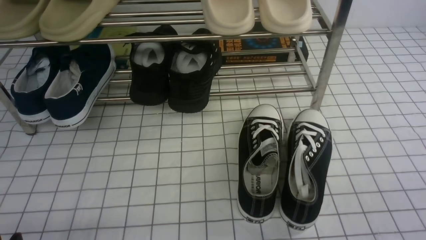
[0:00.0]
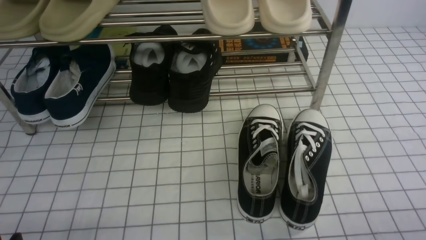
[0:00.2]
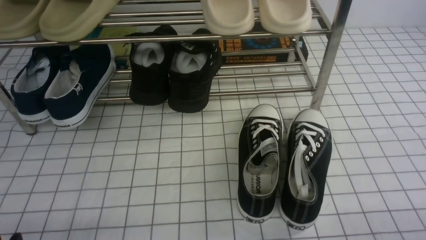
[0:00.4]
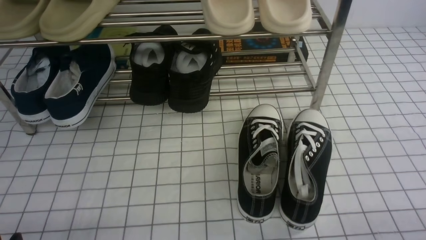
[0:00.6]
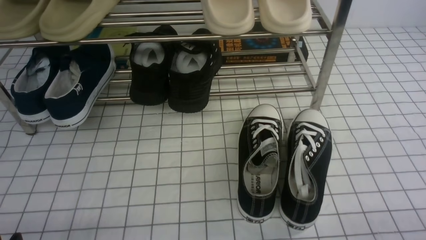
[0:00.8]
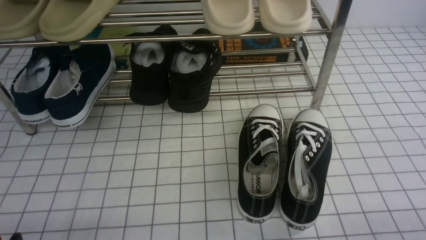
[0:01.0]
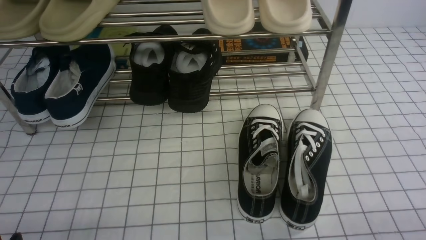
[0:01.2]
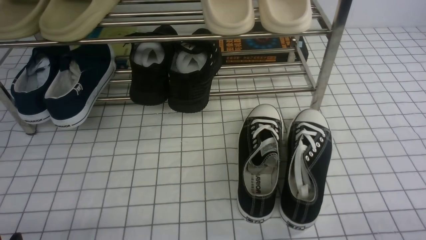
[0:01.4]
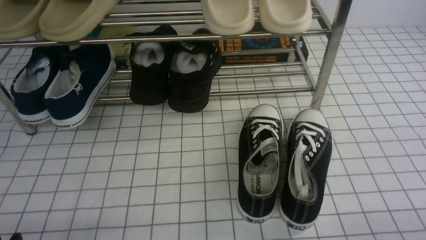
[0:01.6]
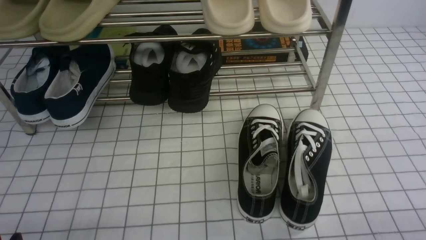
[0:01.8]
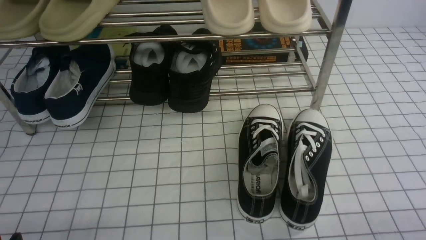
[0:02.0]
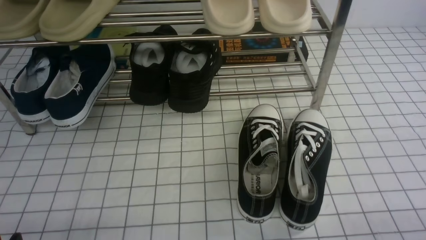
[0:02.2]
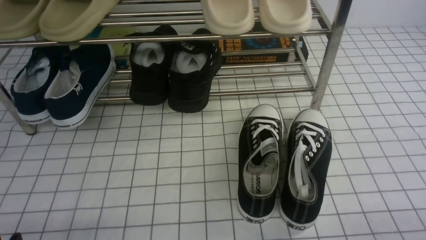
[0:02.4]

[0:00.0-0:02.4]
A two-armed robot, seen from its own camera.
0:01.2 to 0:02.4: Neither gripper changes place.

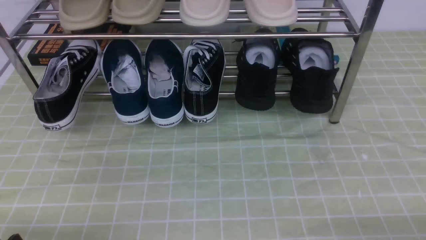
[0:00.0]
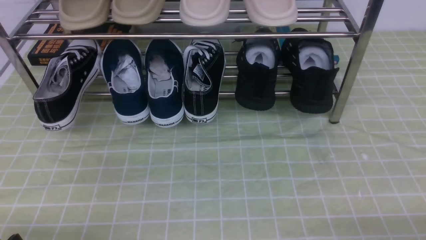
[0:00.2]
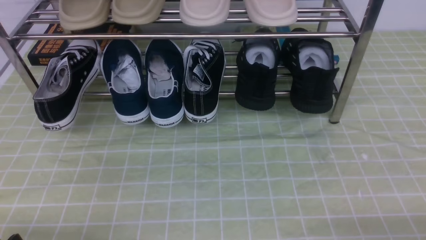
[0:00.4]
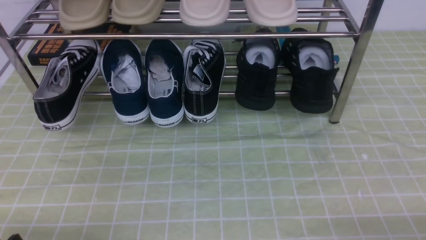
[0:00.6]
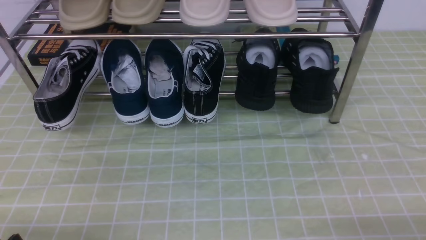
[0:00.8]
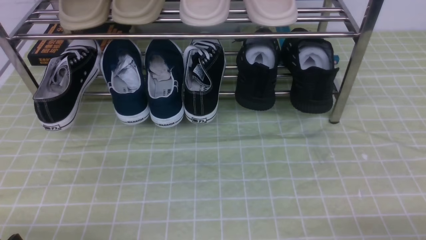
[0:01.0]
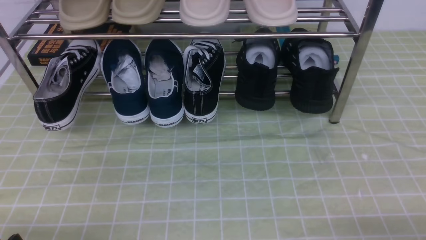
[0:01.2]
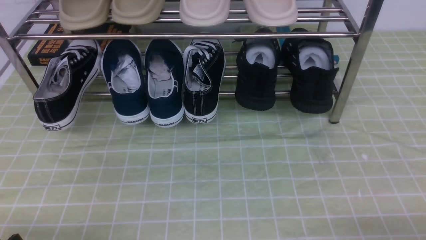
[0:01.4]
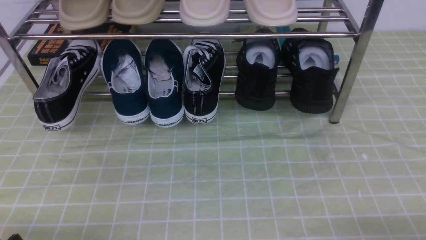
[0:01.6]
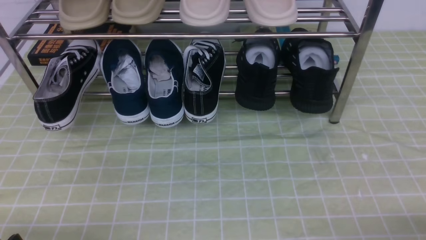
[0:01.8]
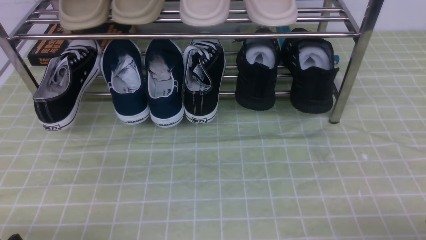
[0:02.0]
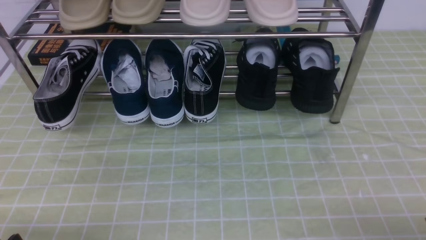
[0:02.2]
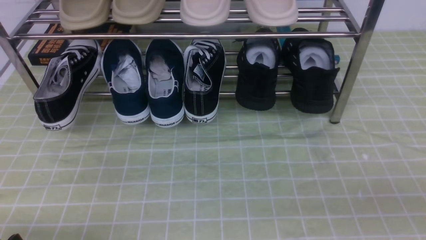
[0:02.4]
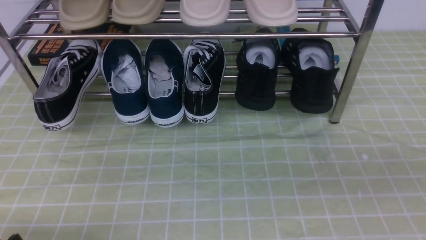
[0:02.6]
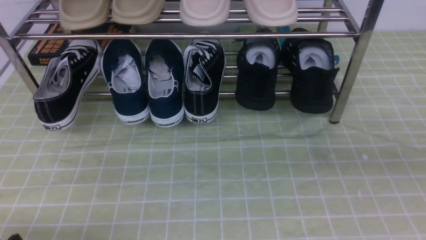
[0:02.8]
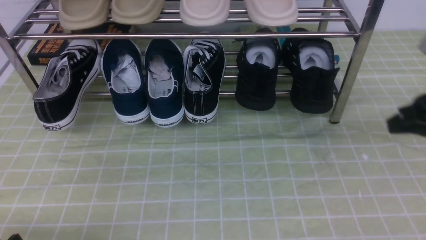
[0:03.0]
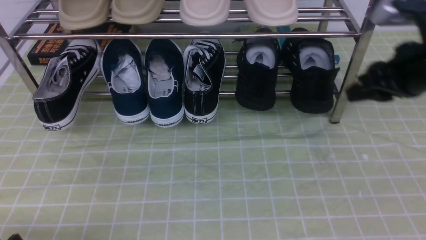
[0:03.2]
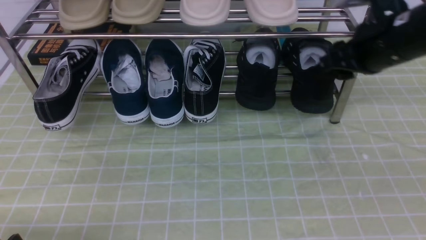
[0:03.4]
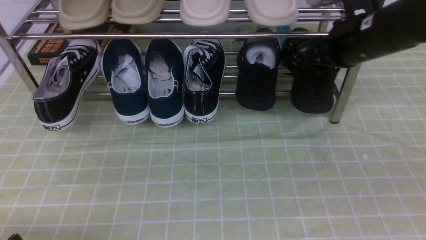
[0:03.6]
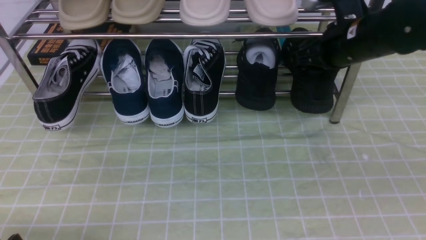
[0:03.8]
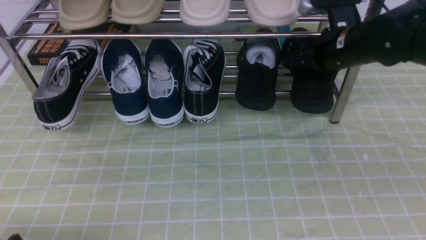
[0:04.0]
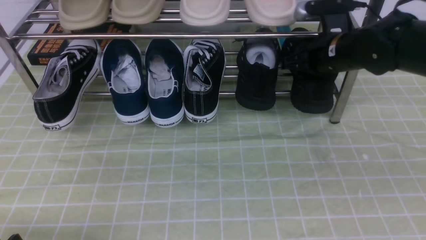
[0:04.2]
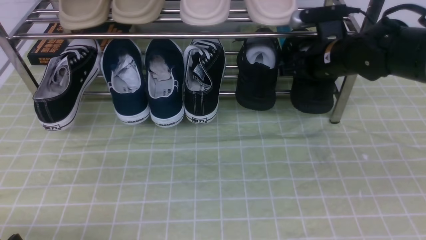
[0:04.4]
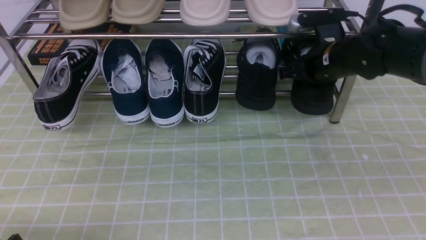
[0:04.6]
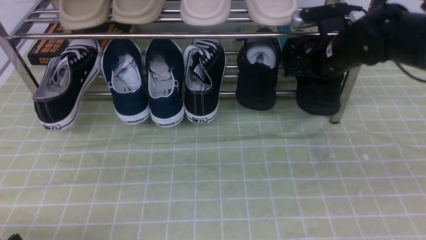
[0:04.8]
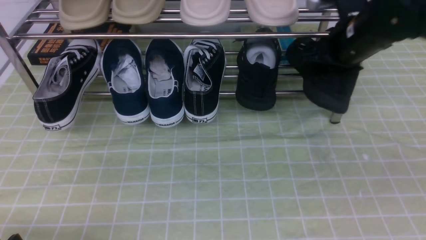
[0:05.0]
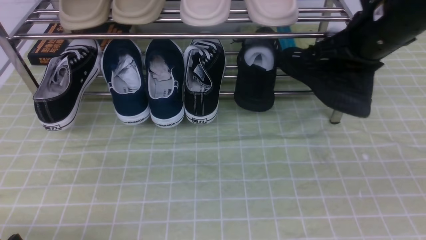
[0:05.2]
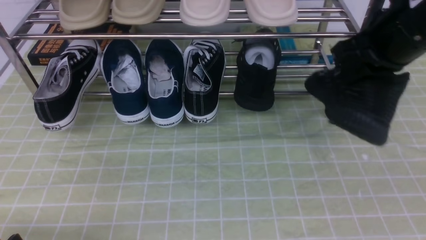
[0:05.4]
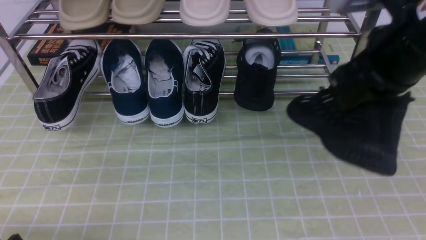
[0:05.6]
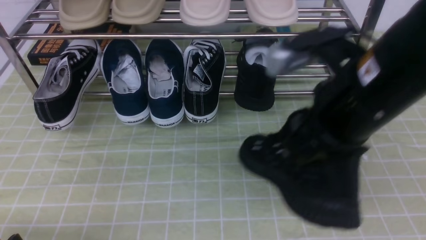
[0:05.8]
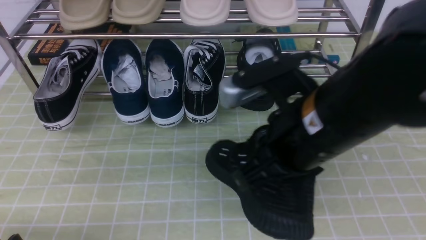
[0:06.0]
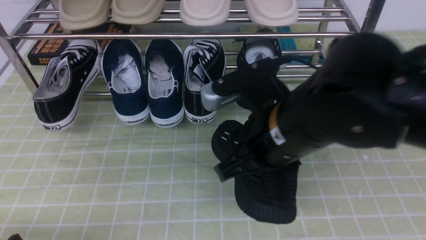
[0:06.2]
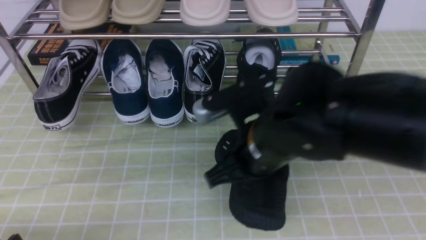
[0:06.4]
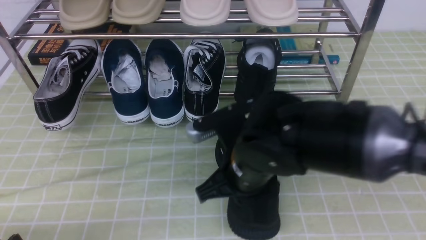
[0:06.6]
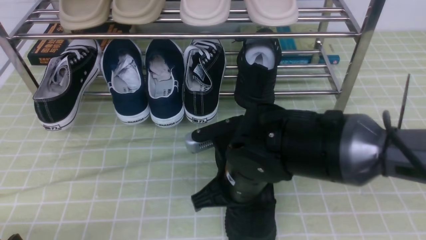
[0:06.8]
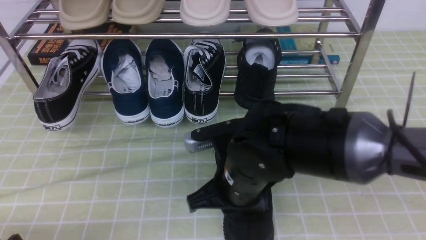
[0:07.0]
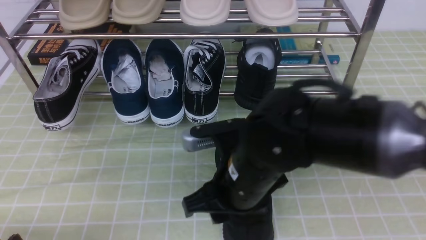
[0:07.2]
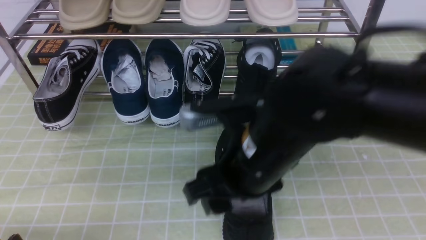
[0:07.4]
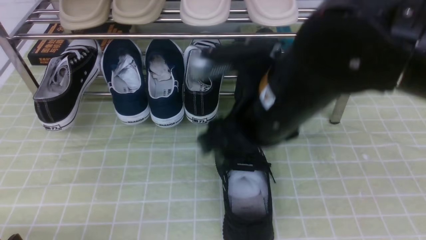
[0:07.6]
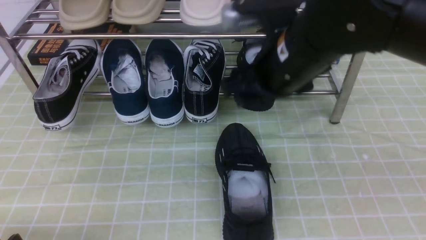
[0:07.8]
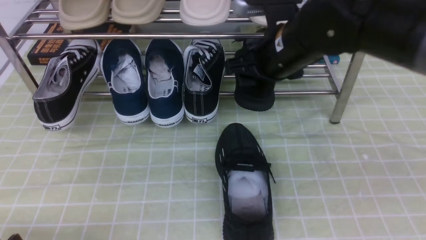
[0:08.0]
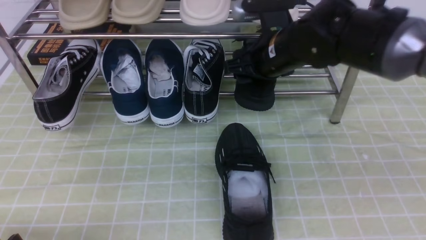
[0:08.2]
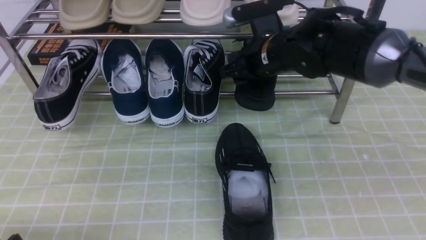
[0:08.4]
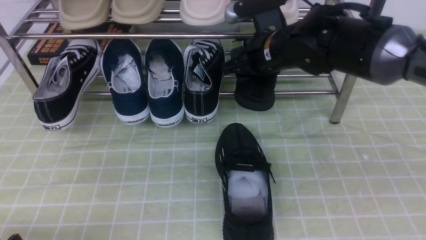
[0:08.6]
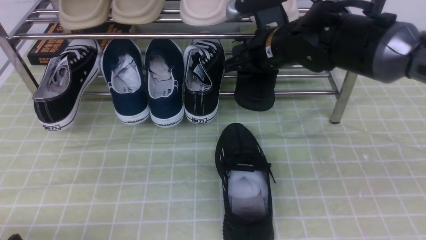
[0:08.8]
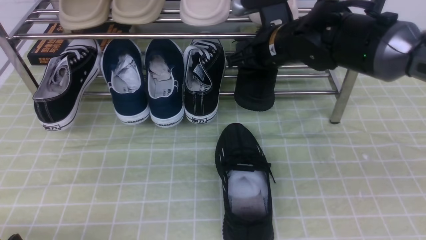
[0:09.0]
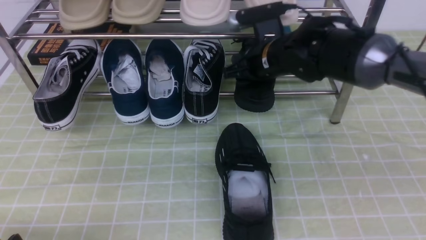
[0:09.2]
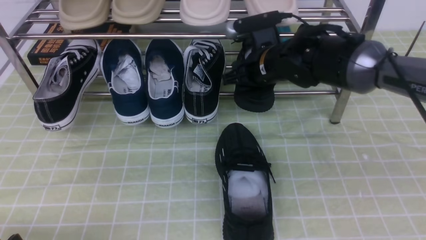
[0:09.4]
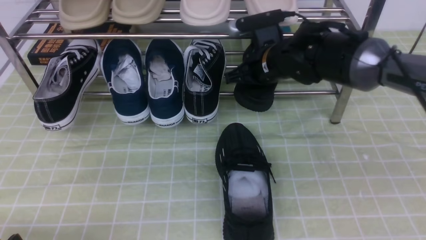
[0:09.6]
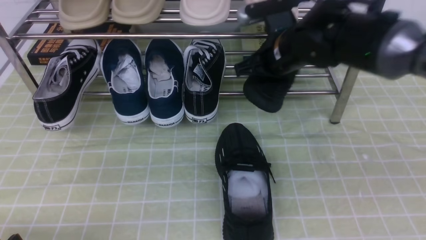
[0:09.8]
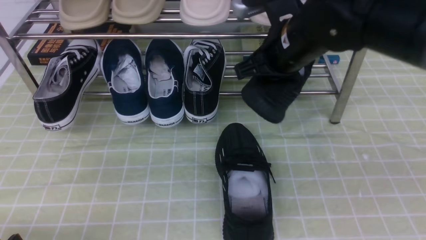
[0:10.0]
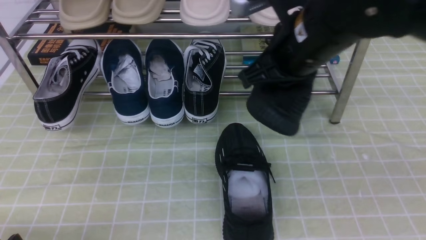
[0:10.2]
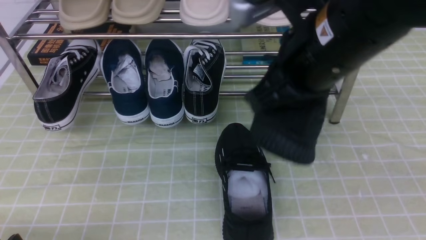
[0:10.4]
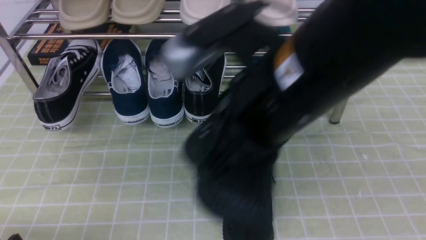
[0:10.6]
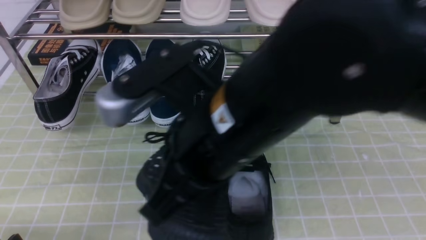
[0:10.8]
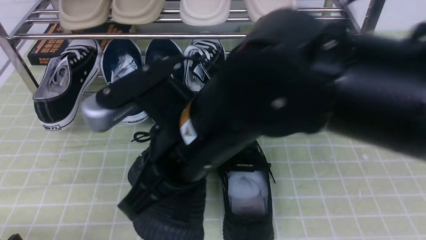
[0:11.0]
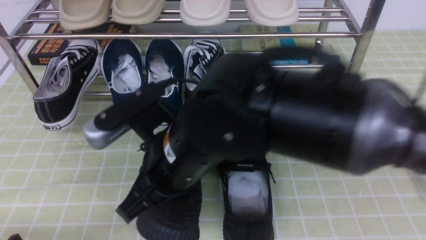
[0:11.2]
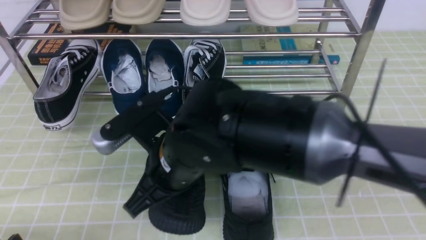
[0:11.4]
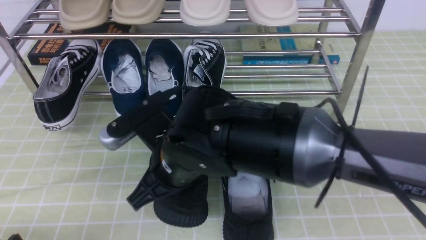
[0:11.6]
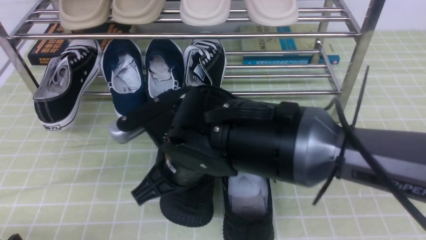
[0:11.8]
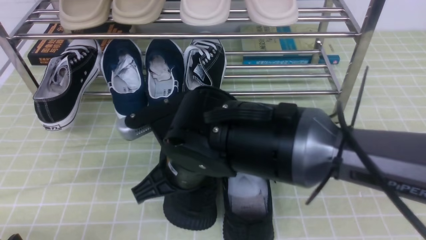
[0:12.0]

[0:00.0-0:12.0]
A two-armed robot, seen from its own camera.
Step, 0:00.0 to 0:04.6: use the right arm to clamp a shoe on the right side of the shoe rack.
Step, 0:04.8 to 0:07.4: use the right arm to take out the clamped shoe from the shoe rack and put it down.
Step, 0:07.6 to 0:09.4: use the right arm to clamp a shoe on the right side of the shoe rack.
0:01.6 to 0:03.0: The right gripper moves forward and upward, roughly 25 cm.
0:03.0 to 0:04.4: The right gripper heads forward, to the left and downward, covering approximately 20 cm.
0:04.4 to 0:06.0: The right gripper heads backward and to the left, covering about 25 cm, and closes up.
0:06.0 to 0:07.6: The right gripper goes downward and returns, about 10 cm each way, and opens up.
0:07.6 to 0:09.0: The right gripper heads forward, covering approximately 15 cm.
0:09.0 to 0:10.4: The right gripper goes some 20 cm backward and upward, and closes.
0:10.4 to 0:12.0: The right gripper travels downward and to the left by some 20 cm.

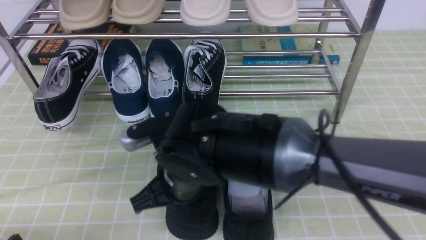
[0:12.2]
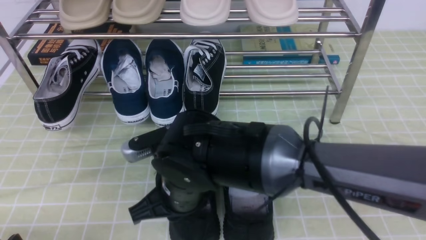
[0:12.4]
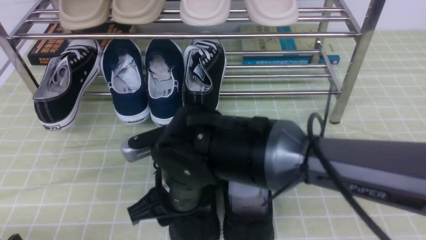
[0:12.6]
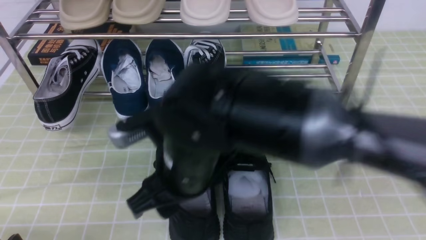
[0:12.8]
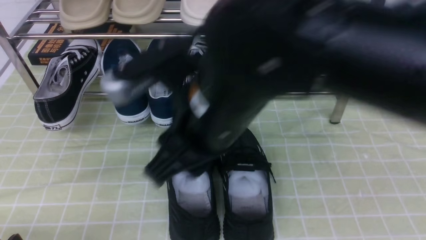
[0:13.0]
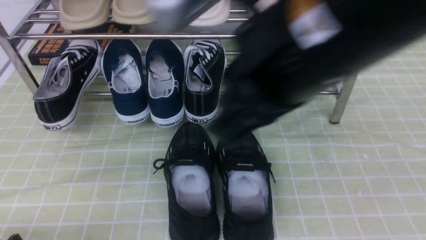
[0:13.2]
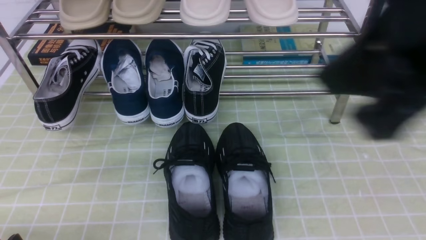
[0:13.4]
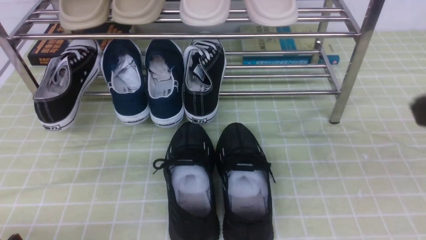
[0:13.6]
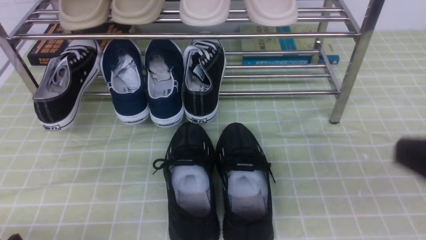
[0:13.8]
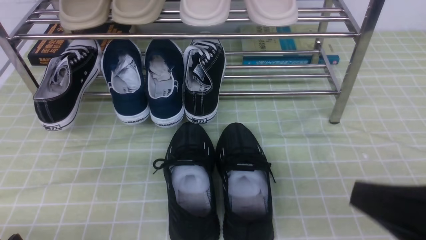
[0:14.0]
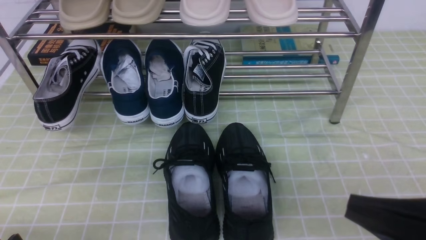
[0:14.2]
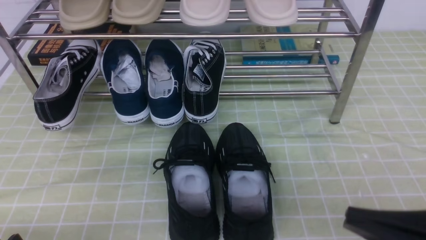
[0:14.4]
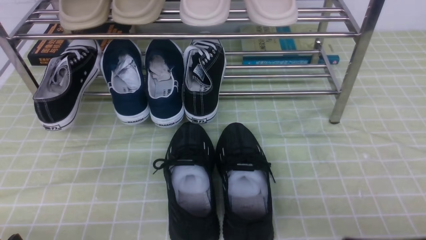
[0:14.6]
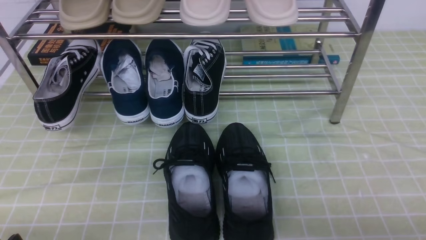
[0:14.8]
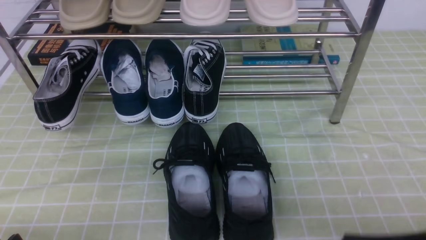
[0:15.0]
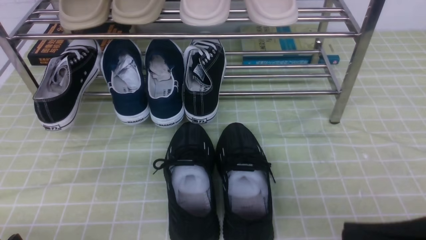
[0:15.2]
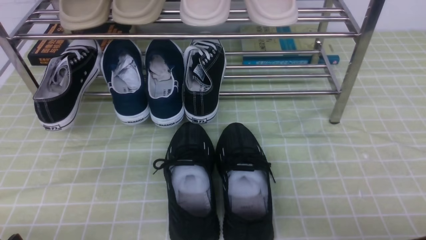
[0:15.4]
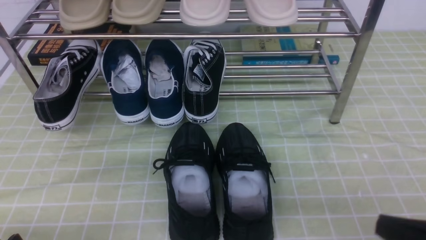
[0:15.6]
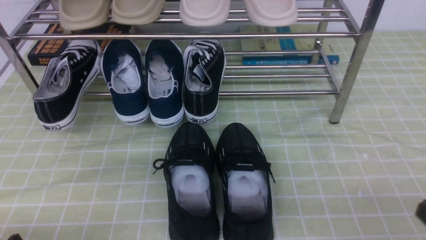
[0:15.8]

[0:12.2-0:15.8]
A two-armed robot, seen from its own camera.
0:12.2 to 0:14.0: The right gripper shifts about 30 cm to the right and backward, and opens and closes again.
0:14.0 to 0:15.8: The right gripper goes roughly 10 cm downward and to the right.
